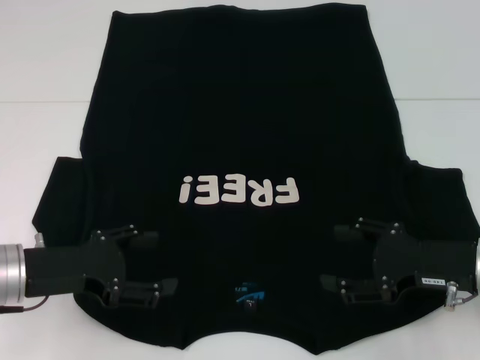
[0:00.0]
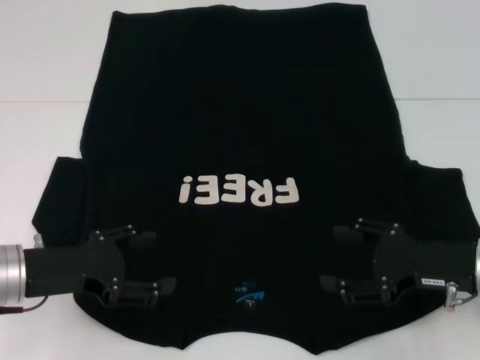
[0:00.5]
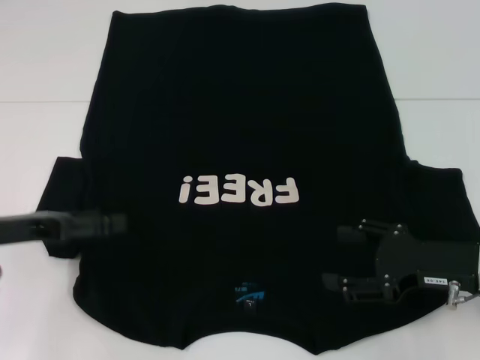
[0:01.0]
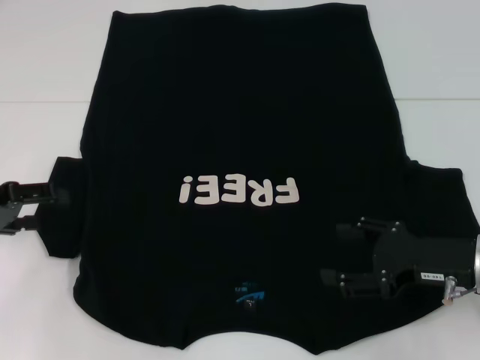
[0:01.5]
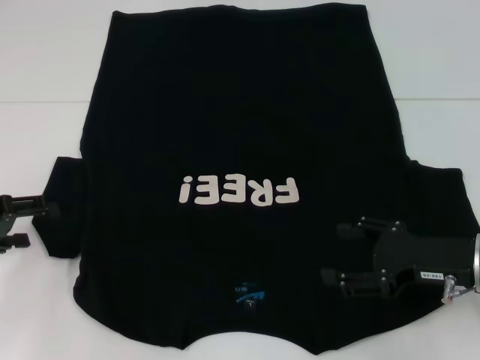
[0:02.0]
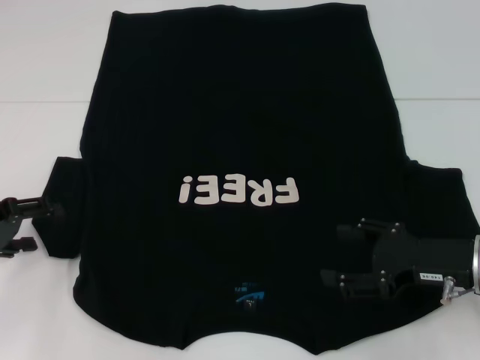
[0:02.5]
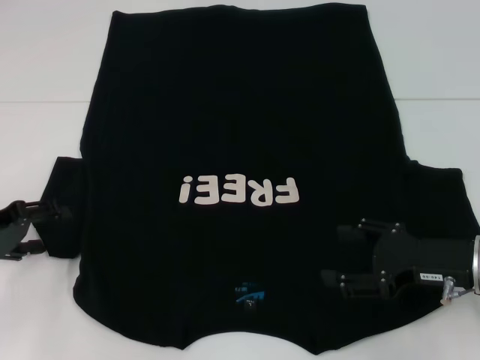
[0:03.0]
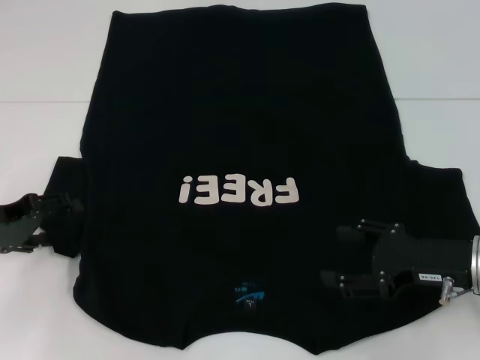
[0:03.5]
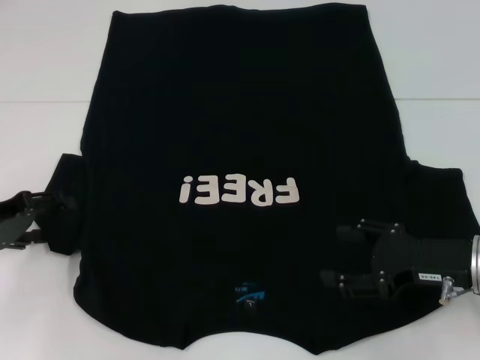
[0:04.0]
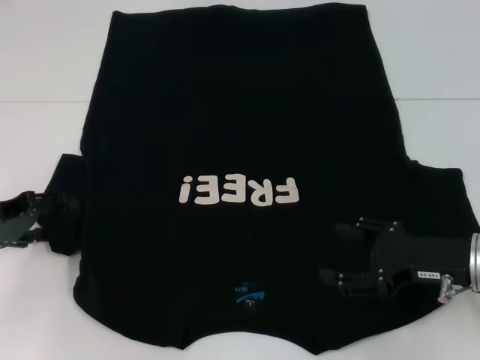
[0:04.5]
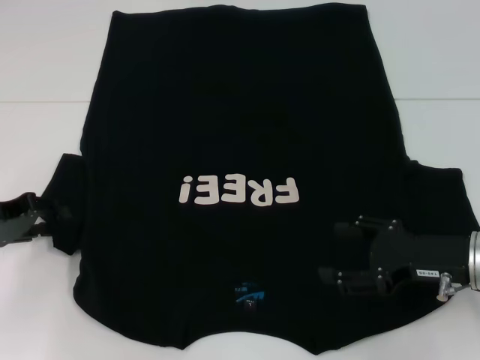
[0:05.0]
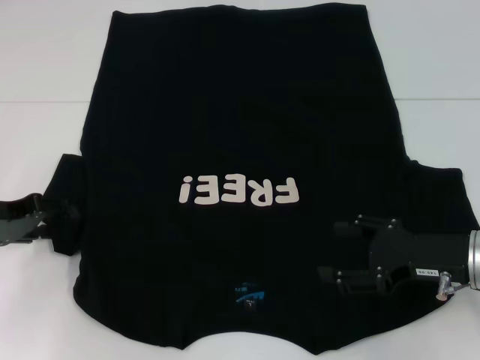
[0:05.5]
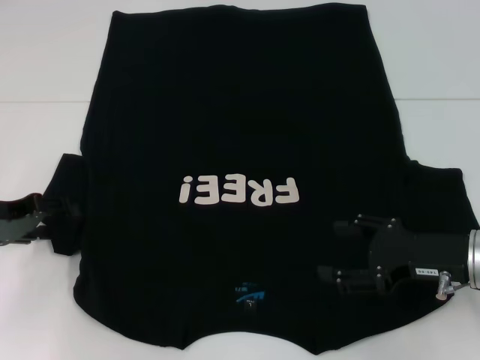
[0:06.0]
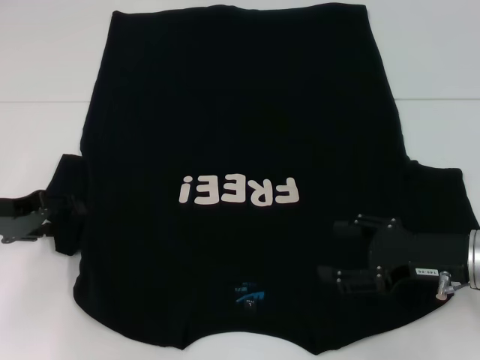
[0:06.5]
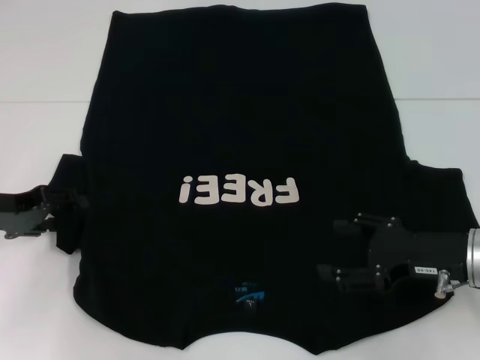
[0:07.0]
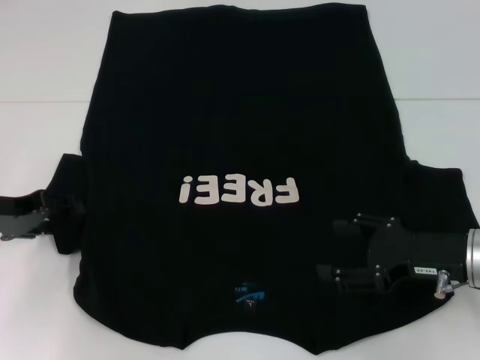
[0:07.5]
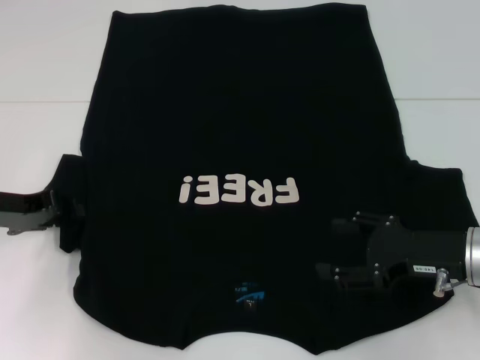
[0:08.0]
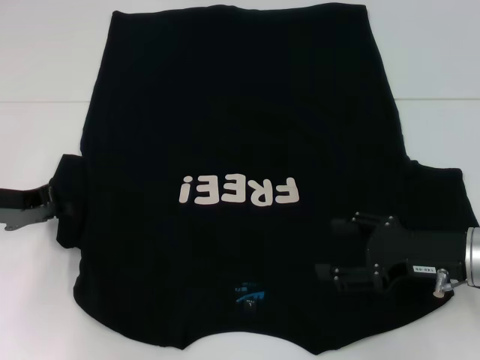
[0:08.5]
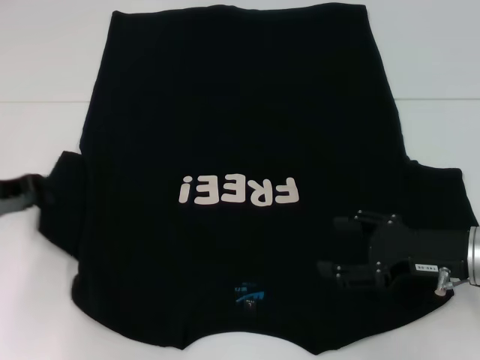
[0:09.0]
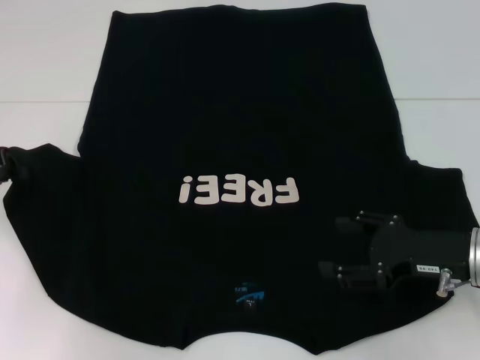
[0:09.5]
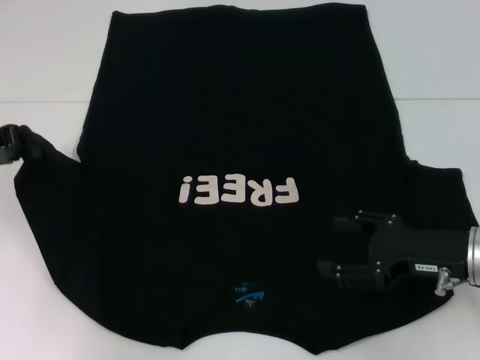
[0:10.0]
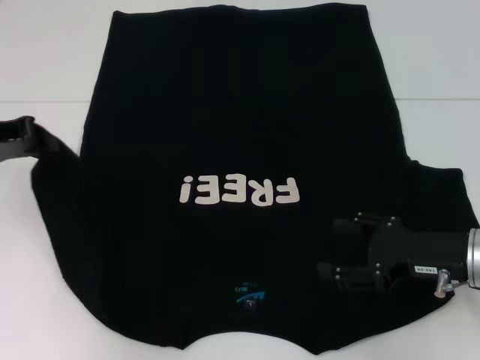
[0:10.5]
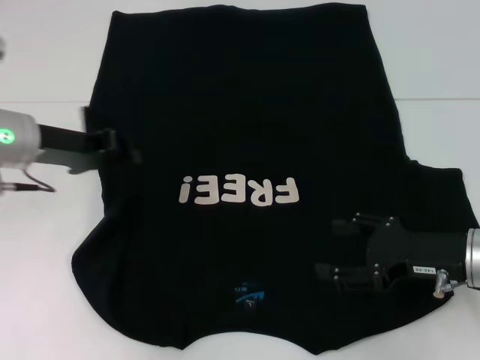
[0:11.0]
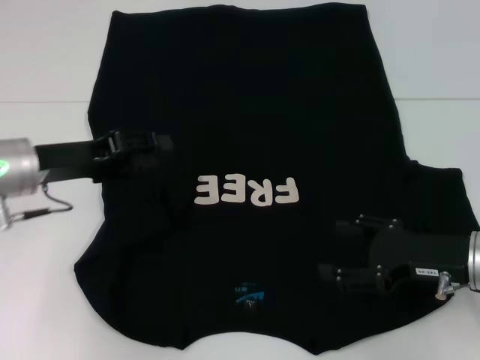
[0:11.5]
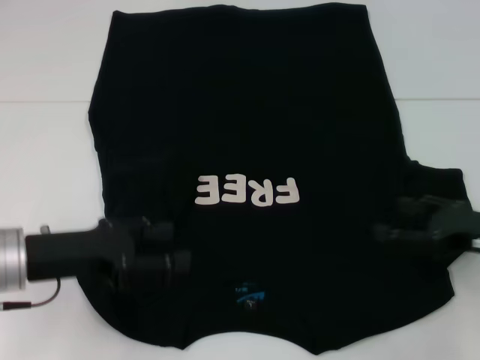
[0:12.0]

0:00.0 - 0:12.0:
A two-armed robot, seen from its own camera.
Step, 0:00.0 - 0:11.5: Fold the bottom left sleeve with your left hand.
0:00.0 - 0:02.0: The left gripper heads to the left, covering about 10 cm.
0:02.0 - 0:08.0: There are only small adjustments of the grippers.
0:08.0 - 0:10.0: The left gripper moves upward, some 5 cm, and closes its fingers.
0:10.0 - 0:12.0: The left gripper is displaced to the right, backward and downward by about 15 cm, and opens its fingers; the right gripper is displaced to the right by about 5 cm.

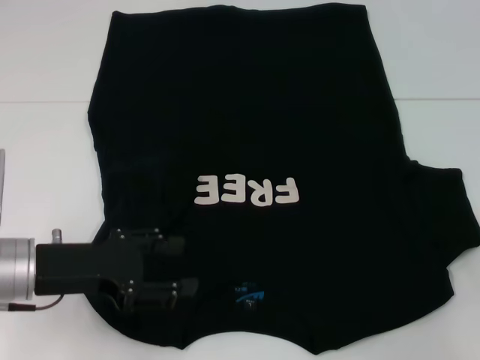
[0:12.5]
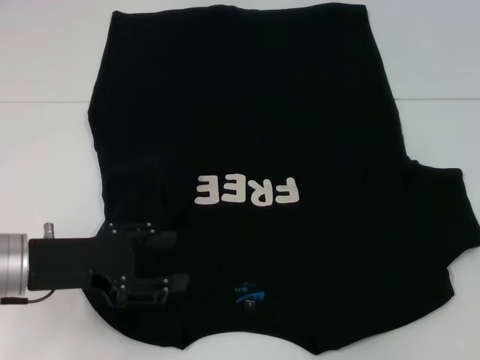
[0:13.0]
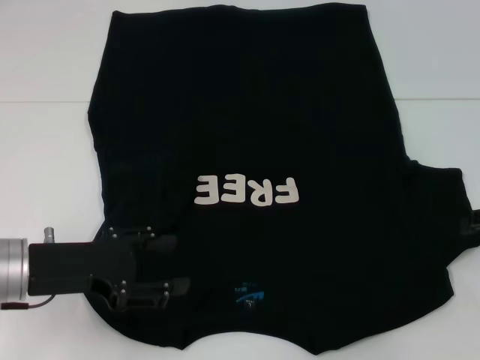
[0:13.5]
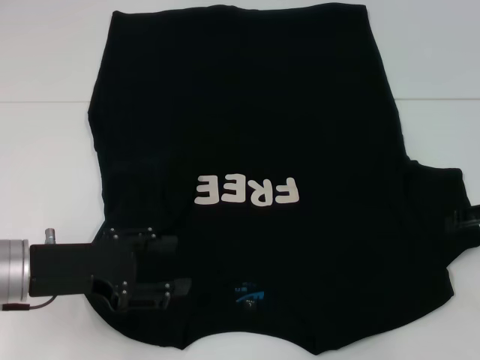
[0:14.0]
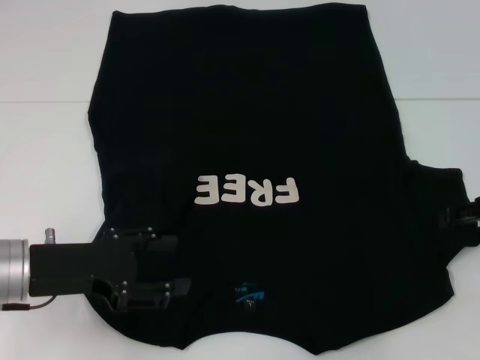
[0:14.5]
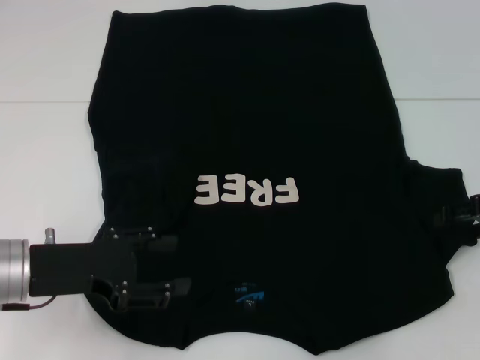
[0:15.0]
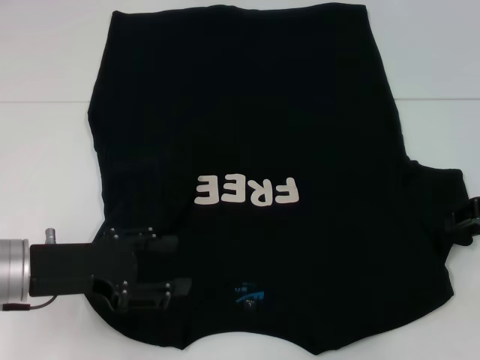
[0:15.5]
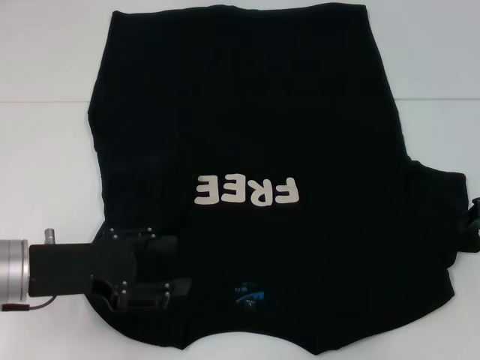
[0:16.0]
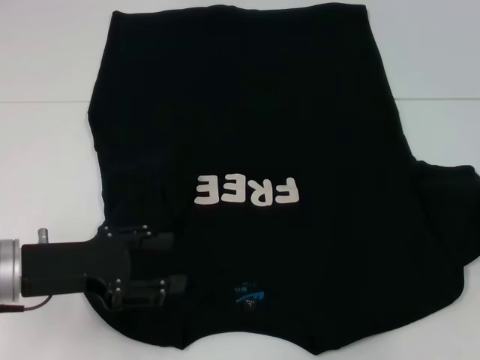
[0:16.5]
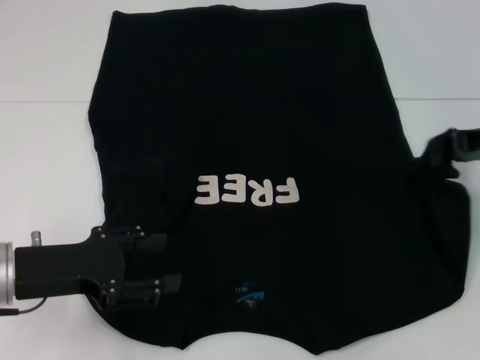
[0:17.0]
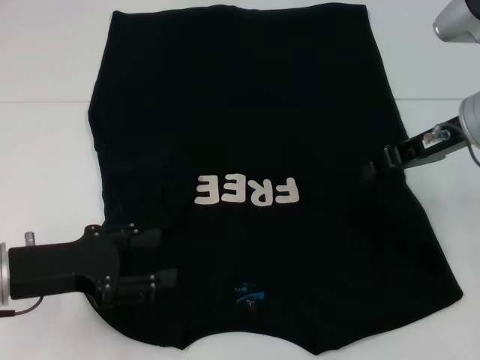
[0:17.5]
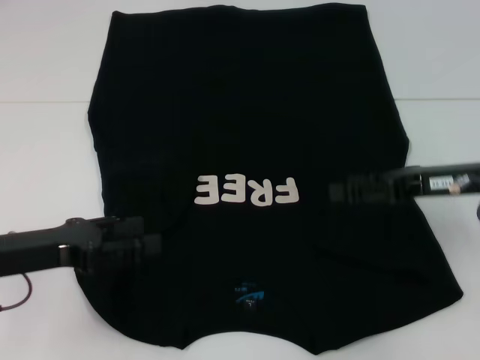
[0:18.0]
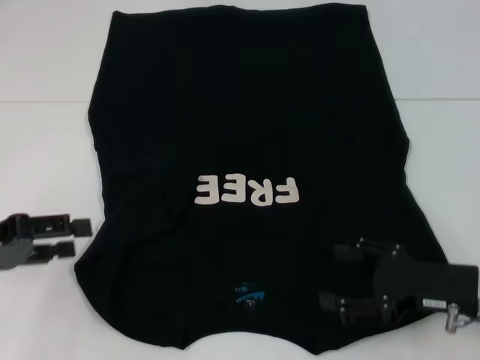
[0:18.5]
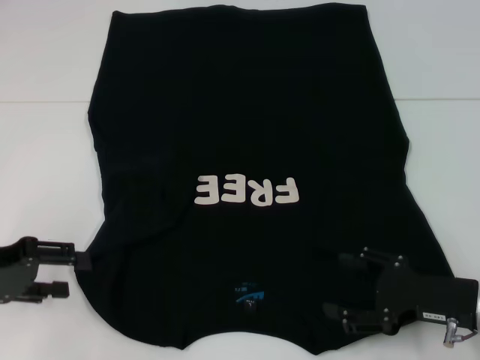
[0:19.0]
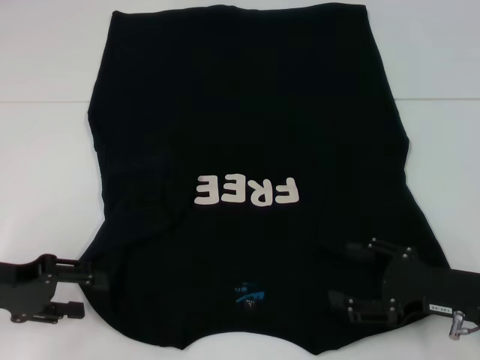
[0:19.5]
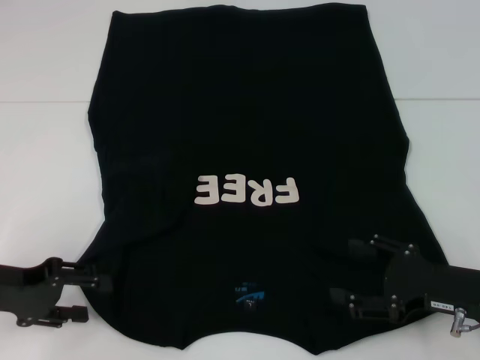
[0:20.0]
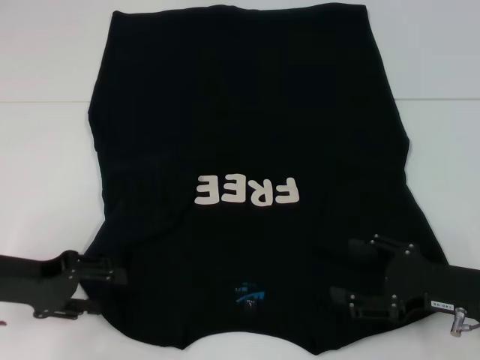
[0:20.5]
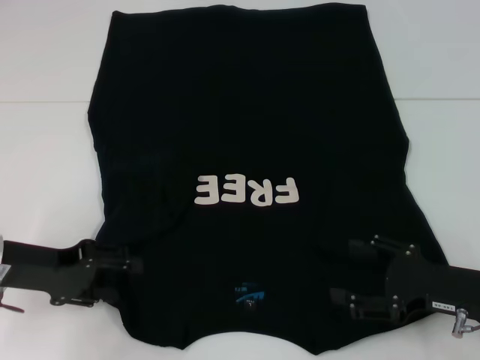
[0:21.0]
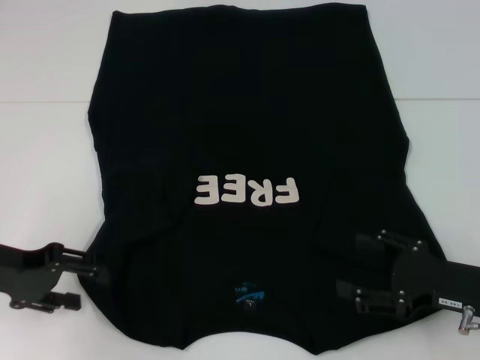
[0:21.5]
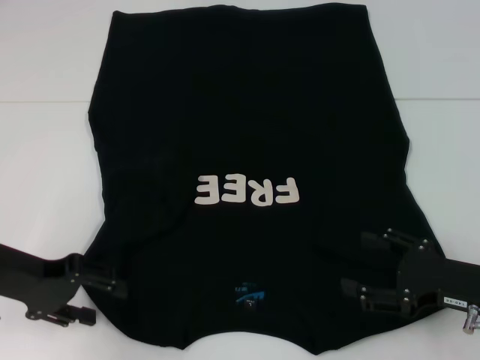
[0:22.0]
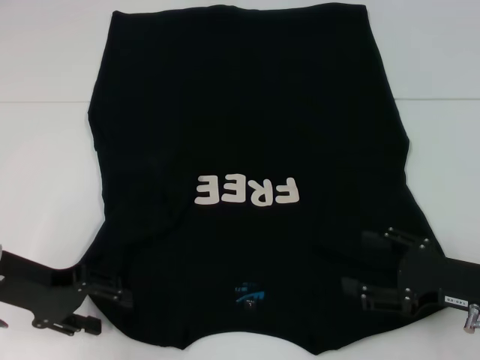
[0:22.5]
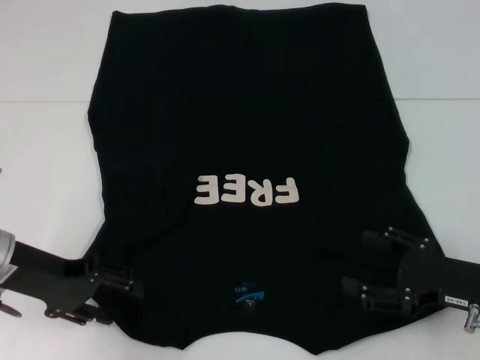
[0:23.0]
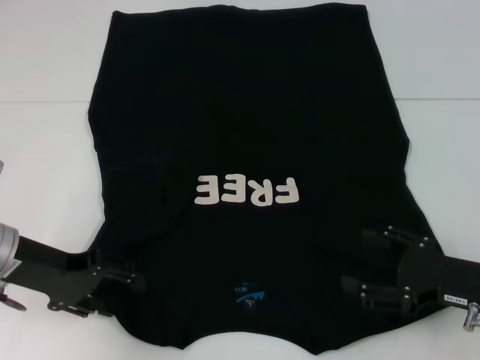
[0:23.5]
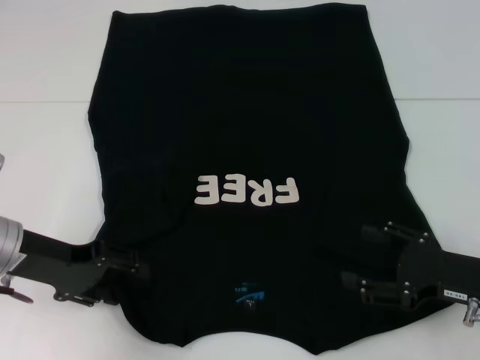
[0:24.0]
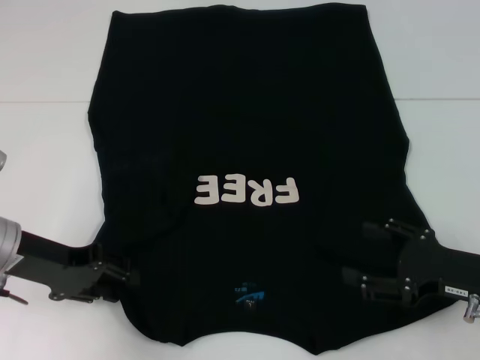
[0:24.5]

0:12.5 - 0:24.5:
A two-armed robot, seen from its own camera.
Step, 0:12.5 - 0:17.5: Fold the bottom right sleeve with your right hand.
0:14.5 - 0:16.5: The right gripper closes up.
0:16.5 - 0:18.5: The left gripper shifts approximately 10 cm to the left. Meanwhile the right gripper moves downward, to the left and backward, approximately 15 cm, and opens.
0:18.5 - 0:20.5: The left gripper changes place by about 5 cm.
0:20.5 - 0:24.5: The grippers move only a little.

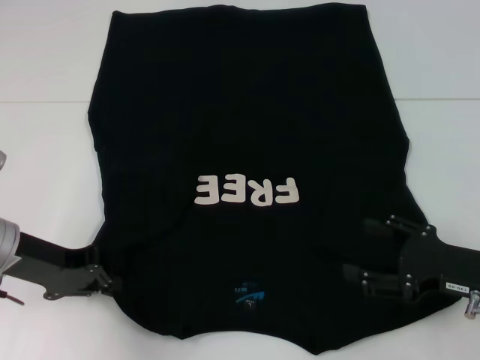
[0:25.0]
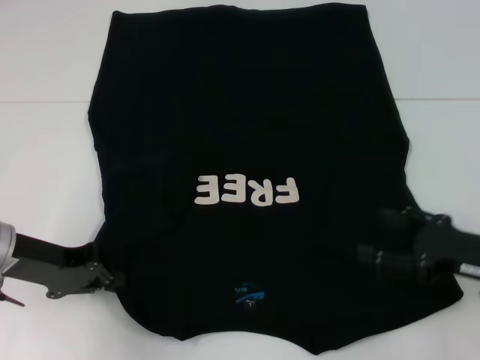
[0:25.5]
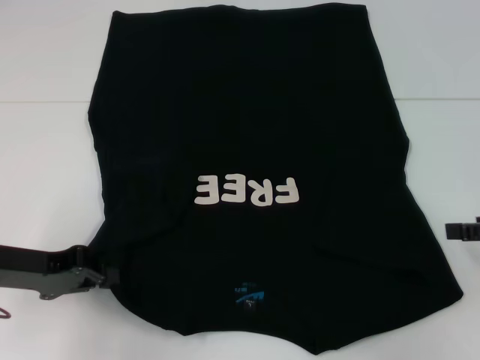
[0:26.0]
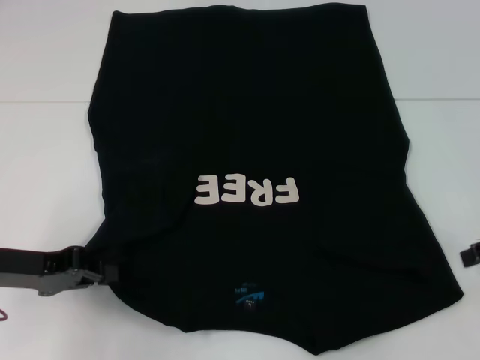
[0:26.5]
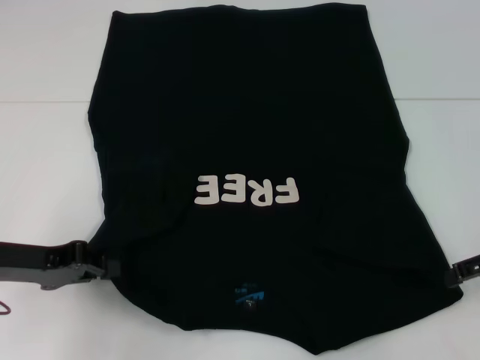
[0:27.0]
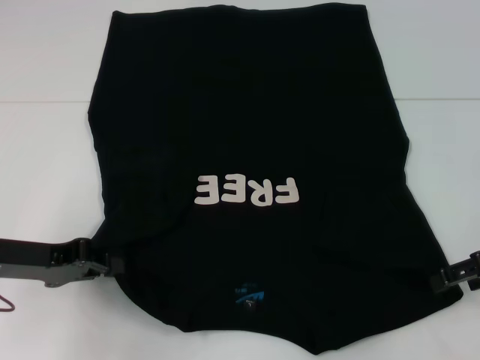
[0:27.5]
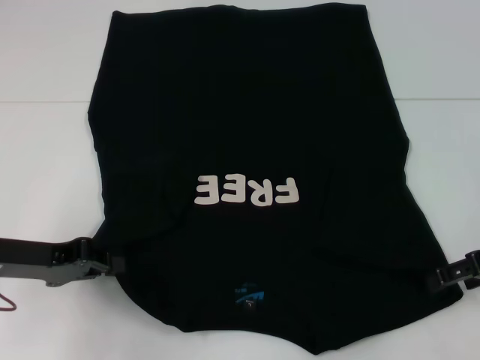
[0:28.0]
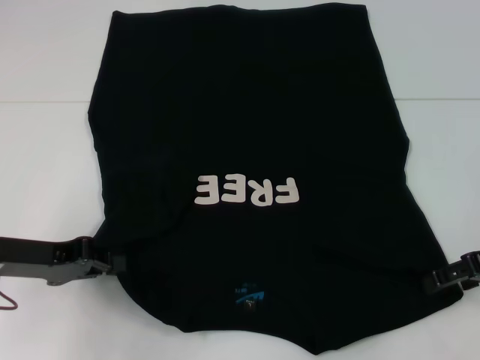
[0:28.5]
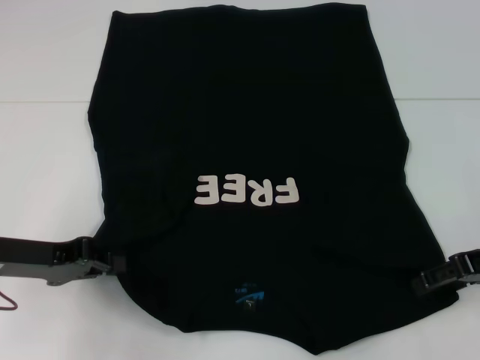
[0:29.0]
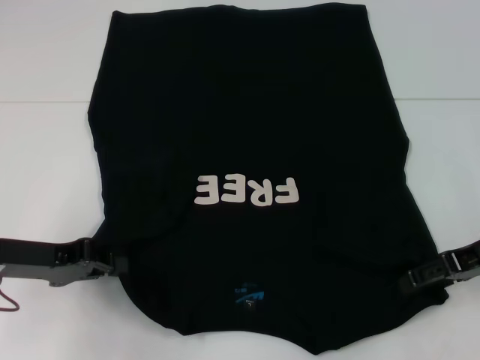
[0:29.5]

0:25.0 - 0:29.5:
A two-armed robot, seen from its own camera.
0:25.0 - 0:27.0: The right gripper is displaced upward, forward and to the right by roughly 10 cm.
0:27.0 - 0:29.5: There are only small adjustments of the grippers.
